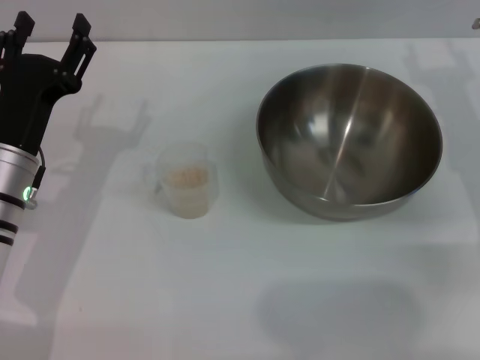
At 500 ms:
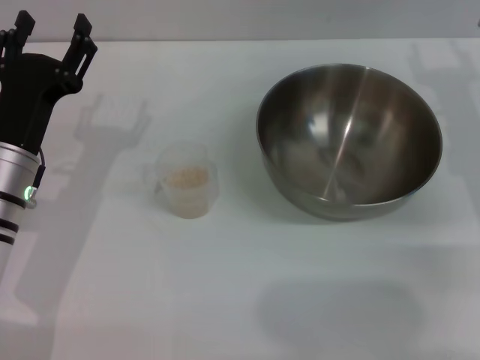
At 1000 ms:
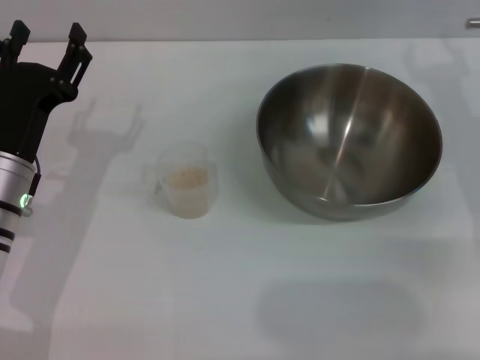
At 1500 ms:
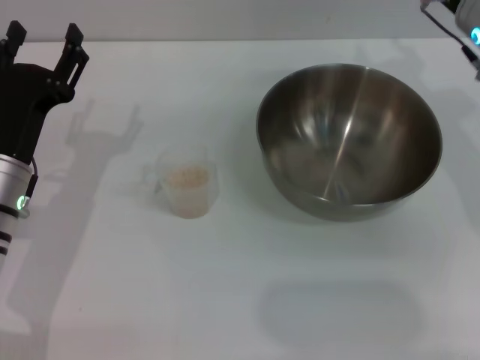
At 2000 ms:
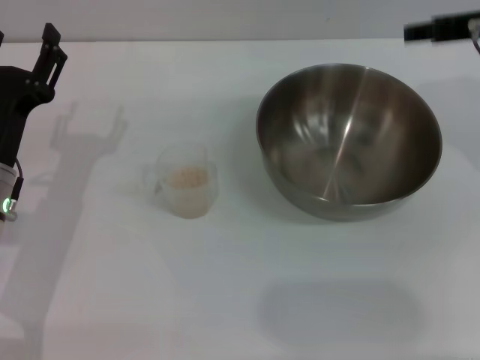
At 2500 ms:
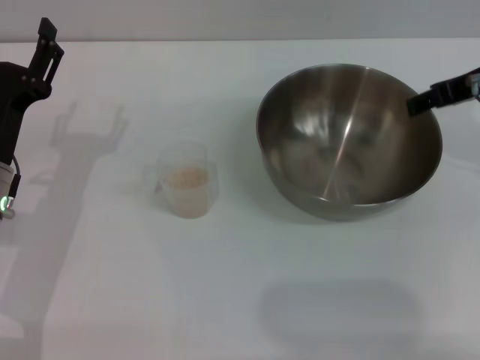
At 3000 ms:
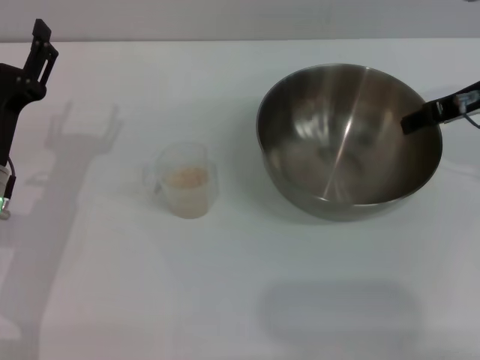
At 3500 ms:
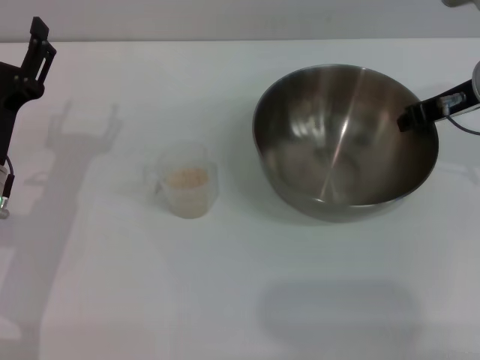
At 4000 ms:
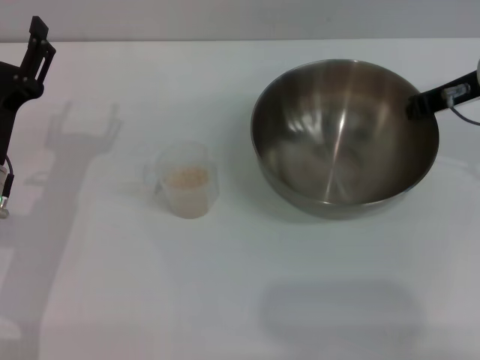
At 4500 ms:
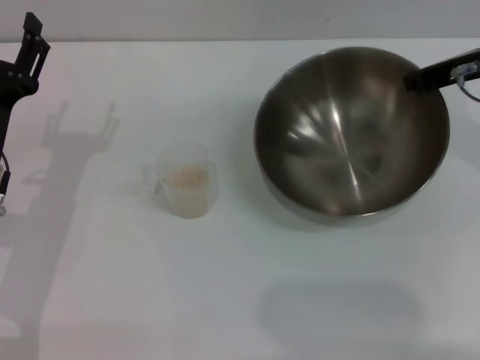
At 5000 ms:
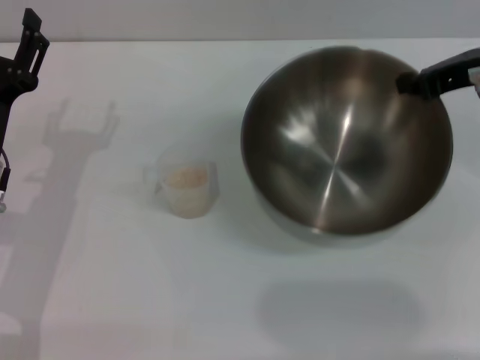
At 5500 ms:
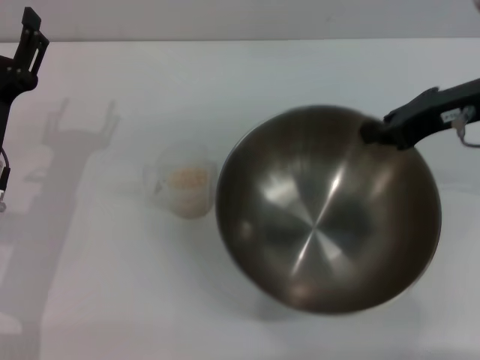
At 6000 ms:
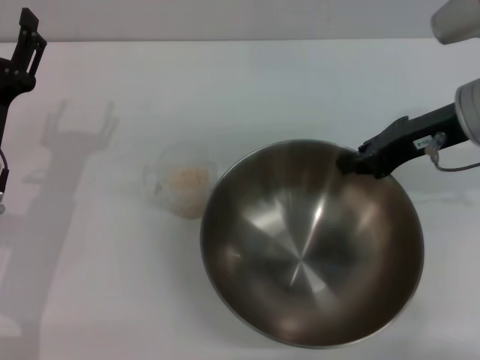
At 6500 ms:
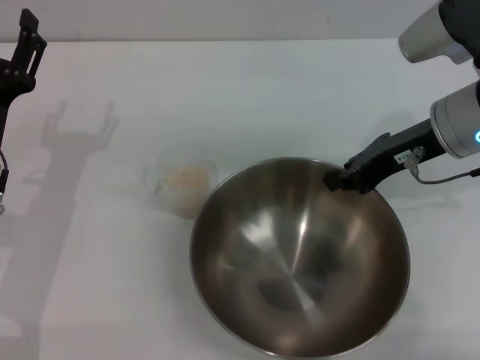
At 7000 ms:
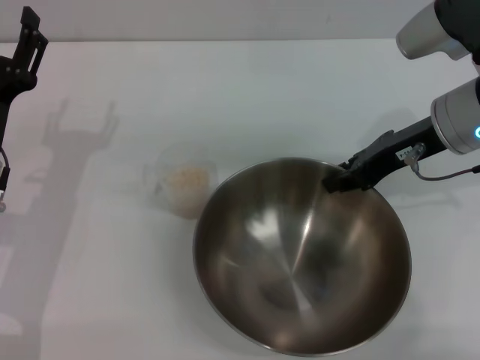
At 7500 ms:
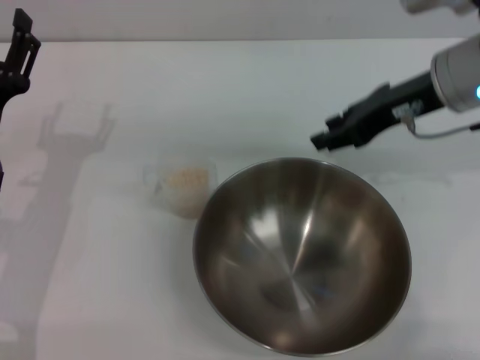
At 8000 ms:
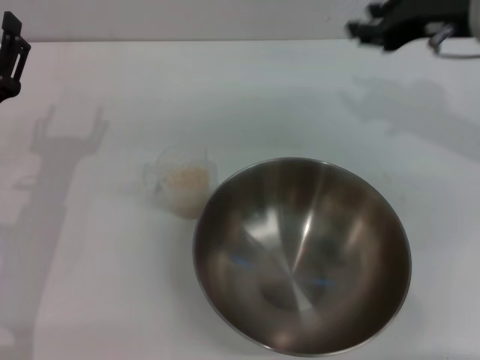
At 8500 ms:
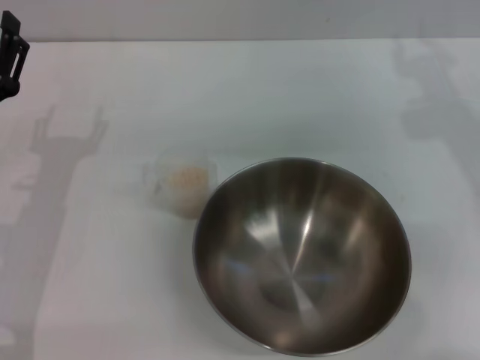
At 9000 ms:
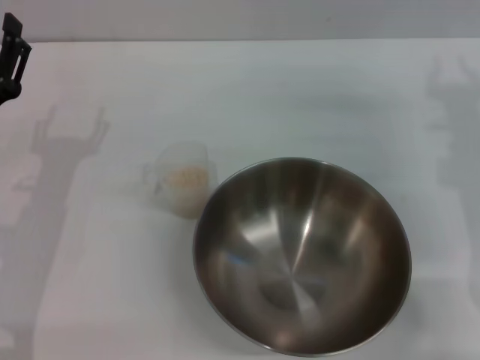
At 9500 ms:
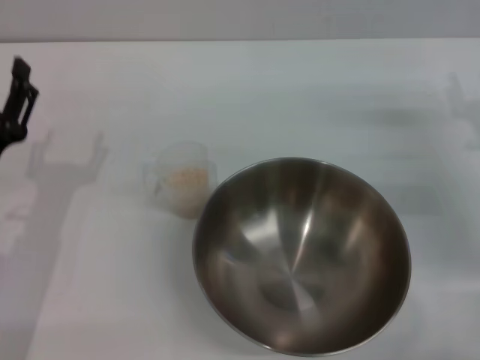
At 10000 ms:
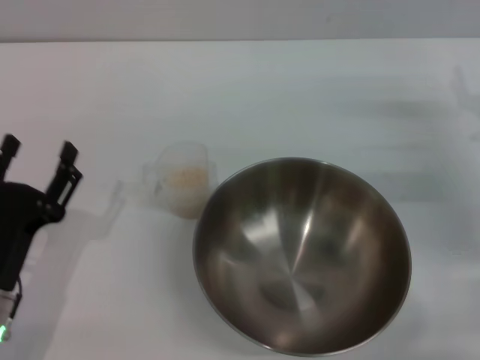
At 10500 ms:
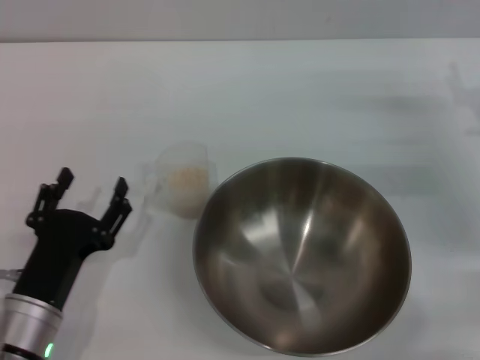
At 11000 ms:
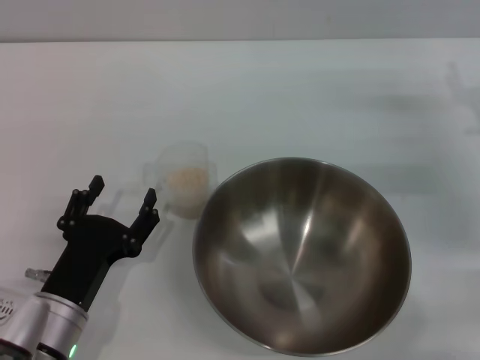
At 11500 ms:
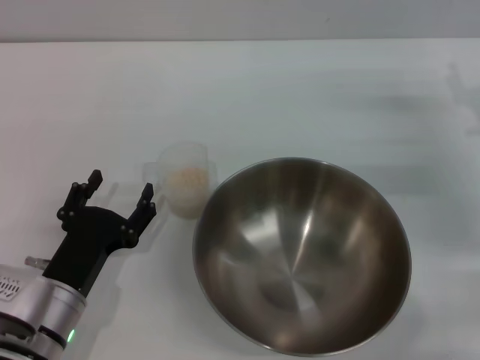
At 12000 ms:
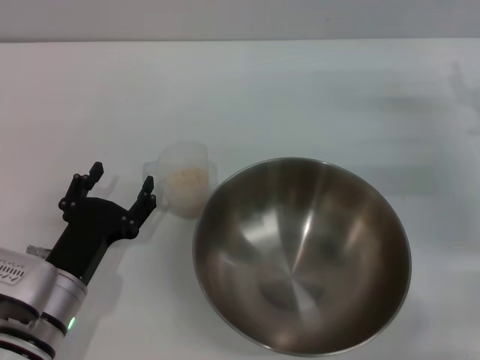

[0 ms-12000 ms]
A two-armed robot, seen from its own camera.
Task of the whole recording: Place the bowl in the middle of the table with one hand and pour the rice from the grain cup into it with the other hand.
Step, 0 ms to 4500 ms: Pick up the bowl with the right gripper.
Step, 5000 ms to 7000 ms: Place the bowl in the center of view with the right gripper.
0 ms to 2000 ms: The right gripper travels upward by roughly 10 cm.
2000 ms to 4000 ms: The right gripper heads downward, covering approximately 5 cm, and closes its fingers.
6000 ms to 8000 ms: The right gripper shifts by approximately 5 cm, and opens its fingers.
8000 ms to 10000 ms: The left gripper shifts roughly 10 cm backward, while the right gripper travels downward and to the right by about 15 cm, and opens its fingers.
10000 ms to 12000 ms: The left gripper shifts by approximately 5 cm.

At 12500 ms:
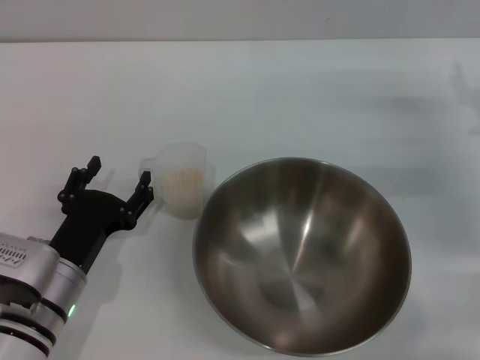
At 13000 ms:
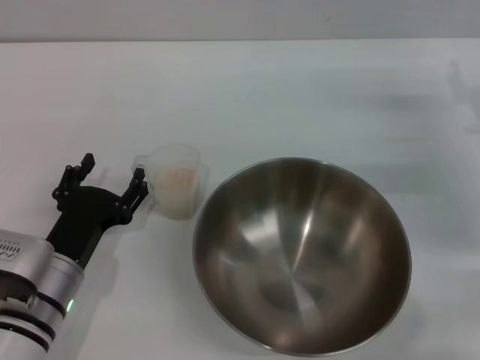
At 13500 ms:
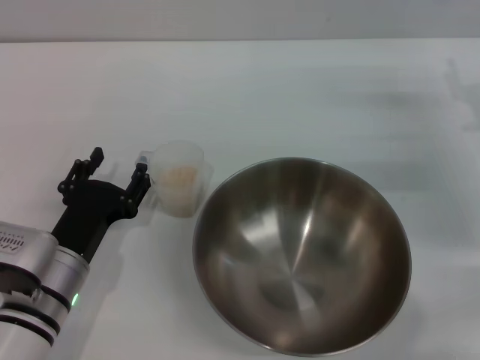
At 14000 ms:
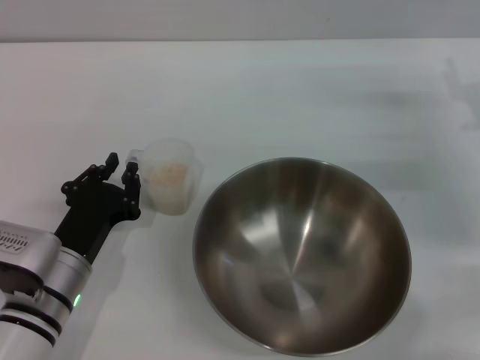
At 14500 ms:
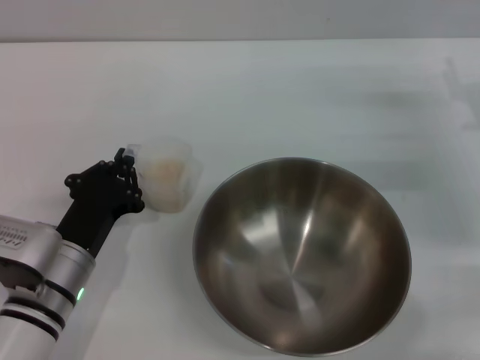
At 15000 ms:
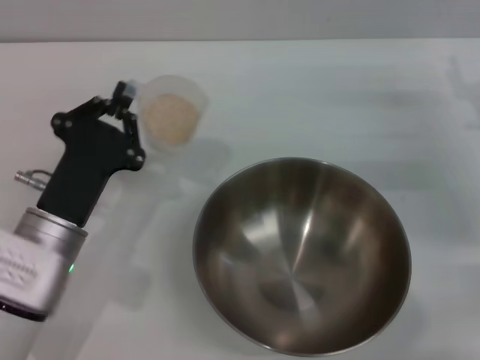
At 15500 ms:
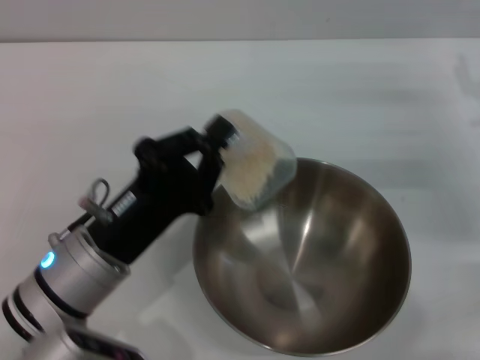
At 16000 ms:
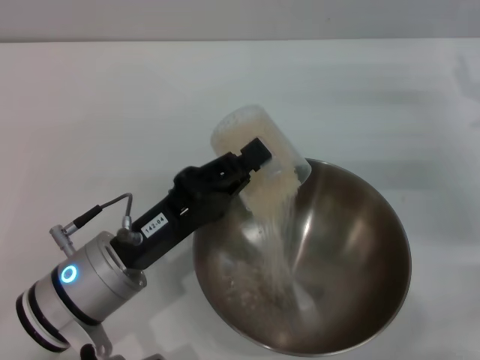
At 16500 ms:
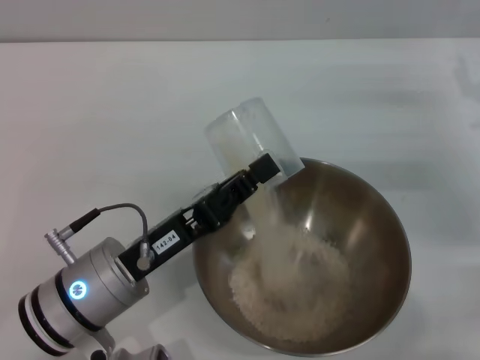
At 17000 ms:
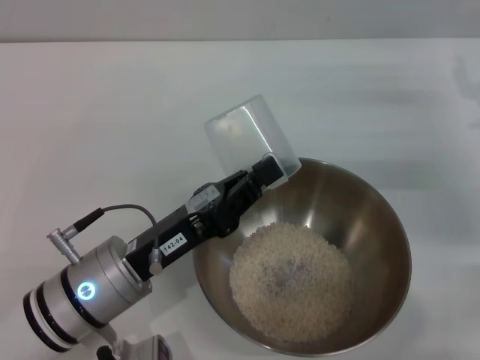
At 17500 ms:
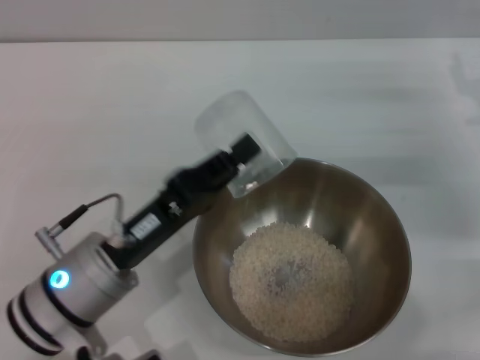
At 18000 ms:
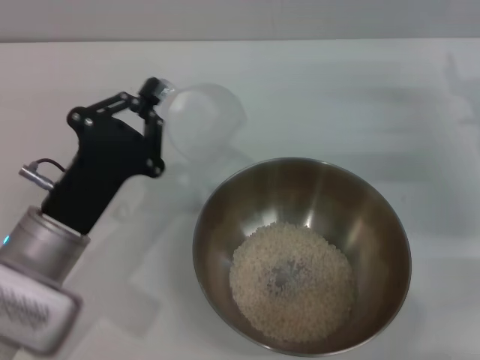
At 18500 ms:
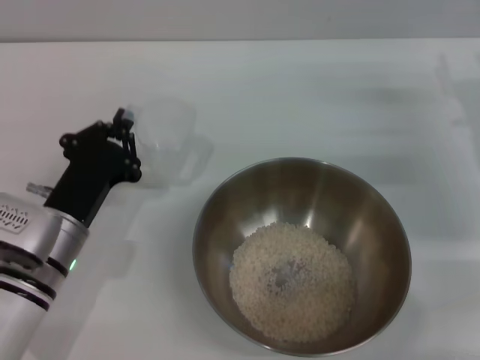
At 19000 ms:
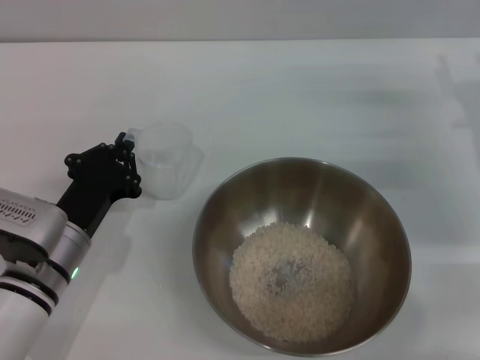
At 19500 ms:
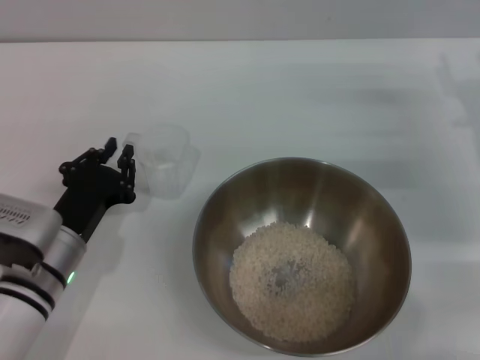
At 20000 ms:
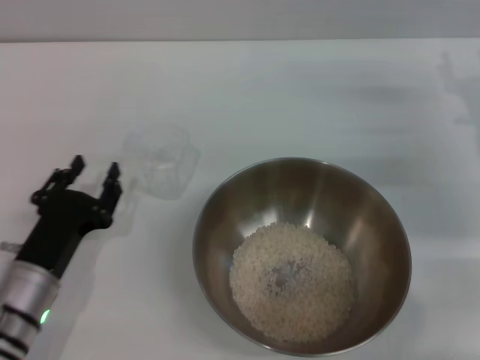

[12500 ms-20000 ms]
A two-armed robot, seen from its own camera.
Task of the whole recording: Place the bowl in the middle of the table with one hand and pour the rice from the grain cup into it with the other hand.
Step, 12500 ms to 14500 ms: Pick up the cup with rice in it with the left gripper.
Step, 15000 ms to 17000 ms: Pour the rice from the cup into the bowl with the left gripper.
Step, 18000 ms to 20000 ms: Place the cup on the table with the left gripper.
12500 ms to 14500 ms: The left gripper closes its fingers.
14500 ms to 16500 ms: The left gripper travels upward by some 5 cm.
18000 ms to 20000 ms: The left gripper goes roughly 5 cm downward, and opens its fingers.
